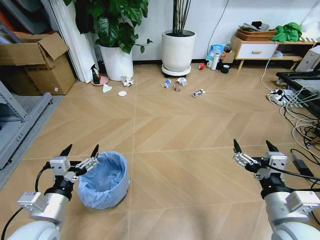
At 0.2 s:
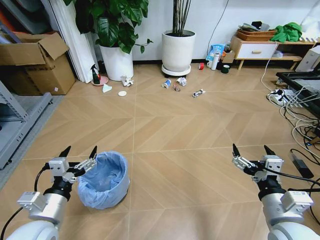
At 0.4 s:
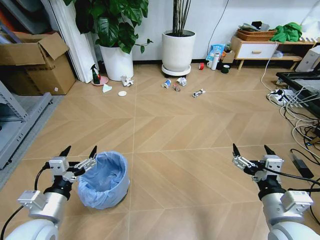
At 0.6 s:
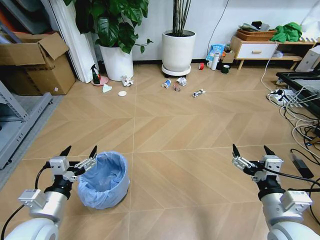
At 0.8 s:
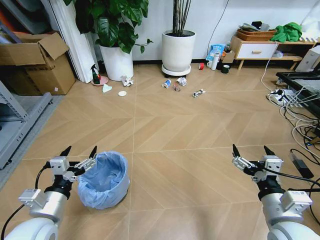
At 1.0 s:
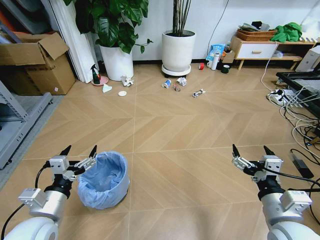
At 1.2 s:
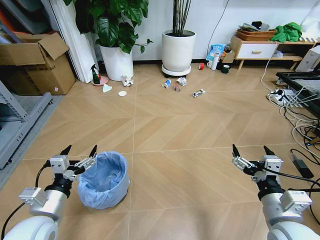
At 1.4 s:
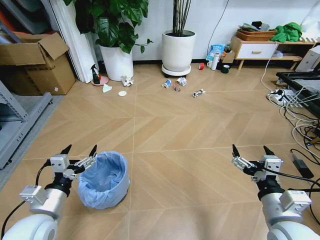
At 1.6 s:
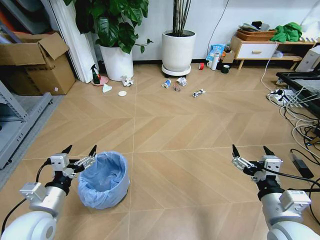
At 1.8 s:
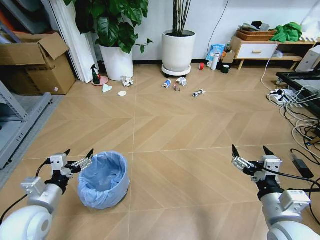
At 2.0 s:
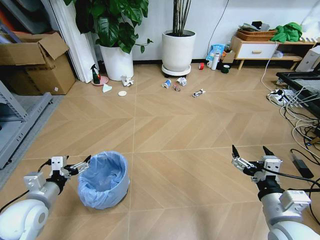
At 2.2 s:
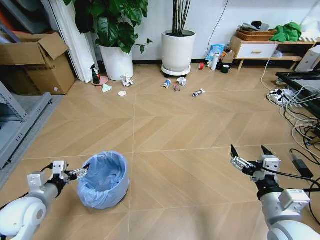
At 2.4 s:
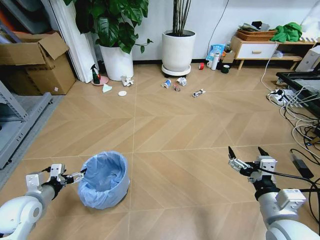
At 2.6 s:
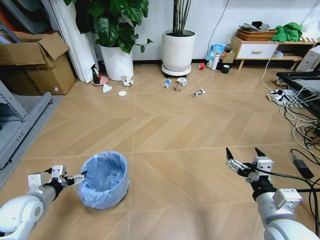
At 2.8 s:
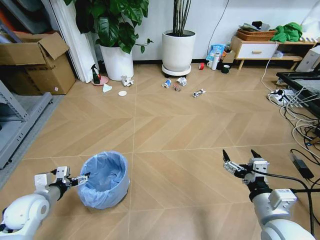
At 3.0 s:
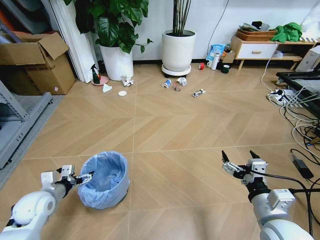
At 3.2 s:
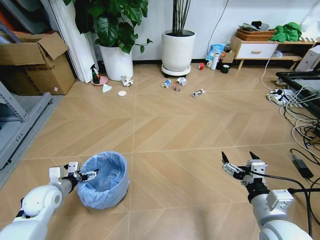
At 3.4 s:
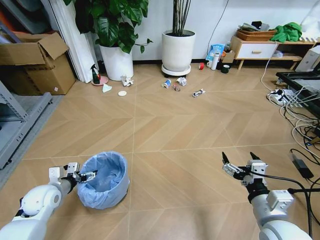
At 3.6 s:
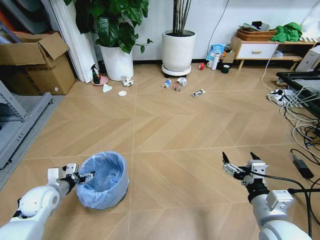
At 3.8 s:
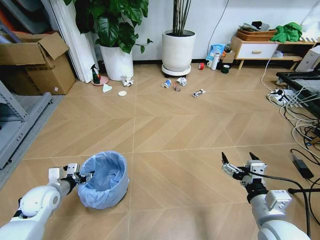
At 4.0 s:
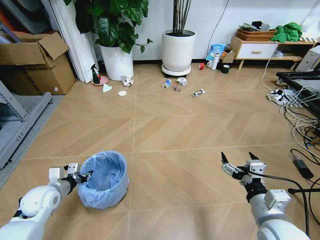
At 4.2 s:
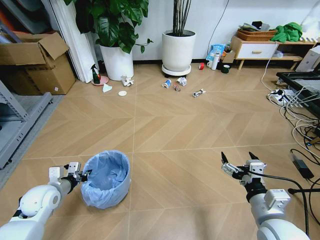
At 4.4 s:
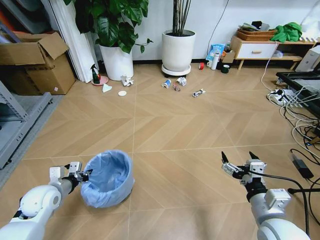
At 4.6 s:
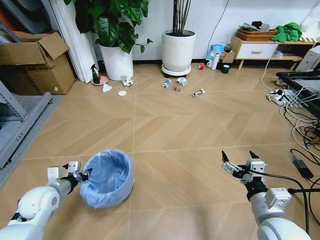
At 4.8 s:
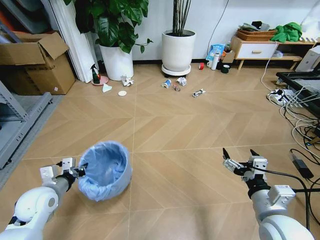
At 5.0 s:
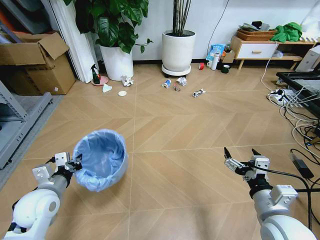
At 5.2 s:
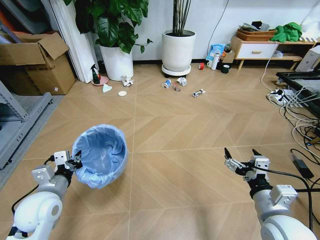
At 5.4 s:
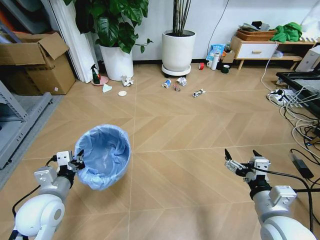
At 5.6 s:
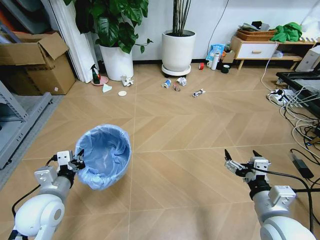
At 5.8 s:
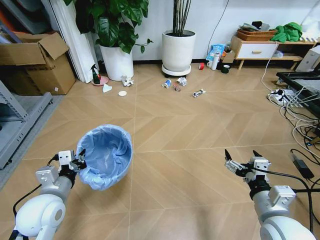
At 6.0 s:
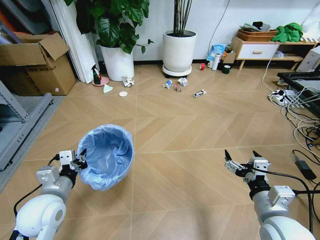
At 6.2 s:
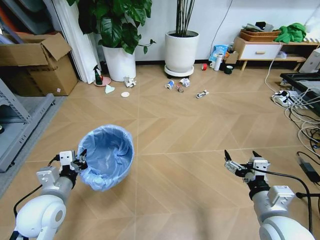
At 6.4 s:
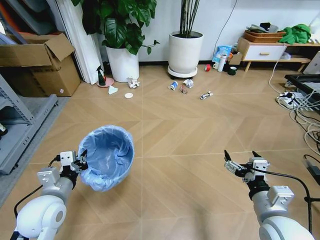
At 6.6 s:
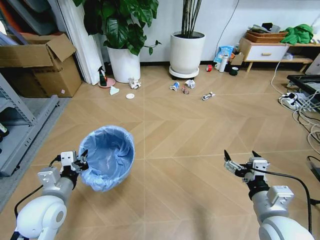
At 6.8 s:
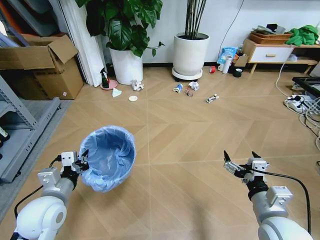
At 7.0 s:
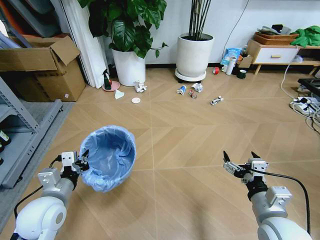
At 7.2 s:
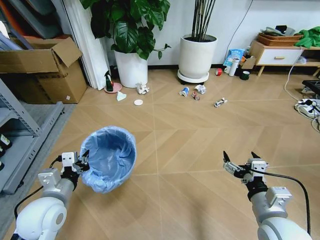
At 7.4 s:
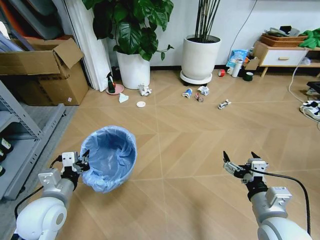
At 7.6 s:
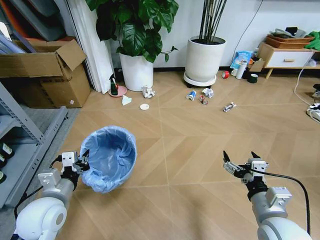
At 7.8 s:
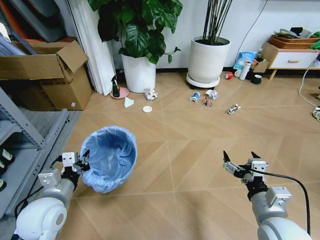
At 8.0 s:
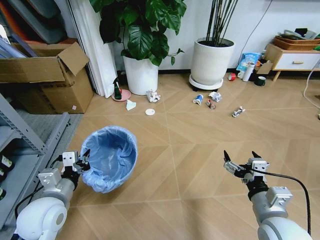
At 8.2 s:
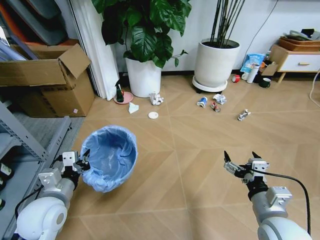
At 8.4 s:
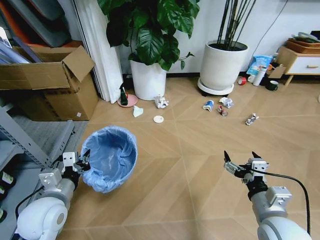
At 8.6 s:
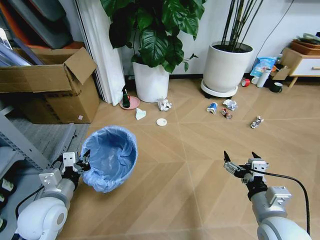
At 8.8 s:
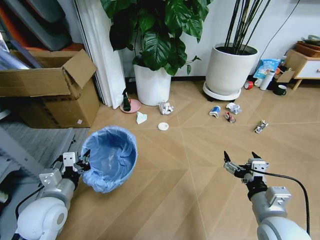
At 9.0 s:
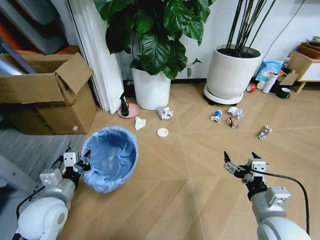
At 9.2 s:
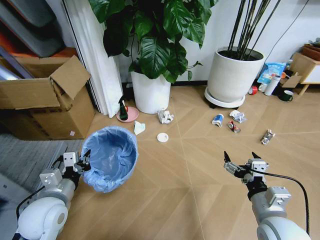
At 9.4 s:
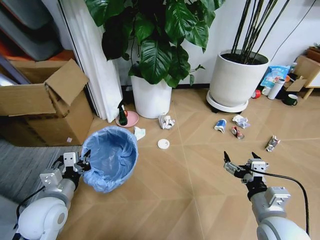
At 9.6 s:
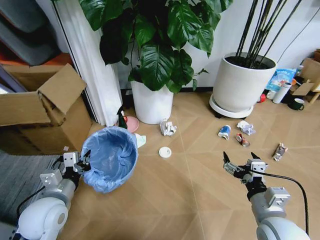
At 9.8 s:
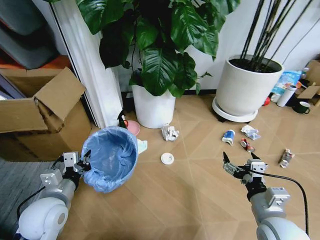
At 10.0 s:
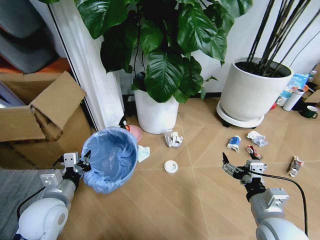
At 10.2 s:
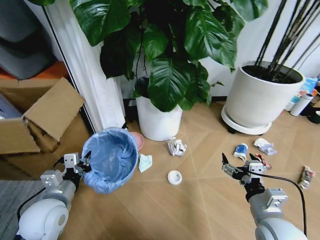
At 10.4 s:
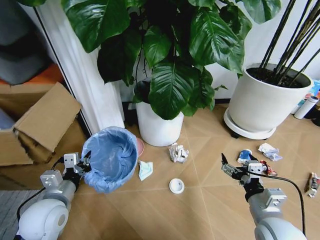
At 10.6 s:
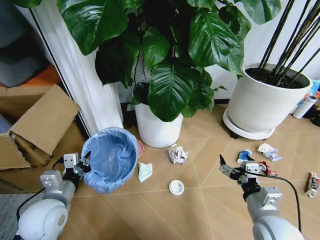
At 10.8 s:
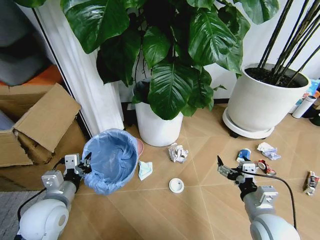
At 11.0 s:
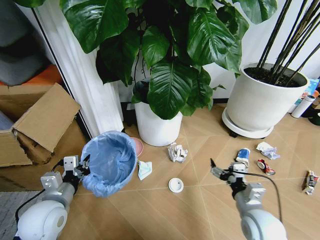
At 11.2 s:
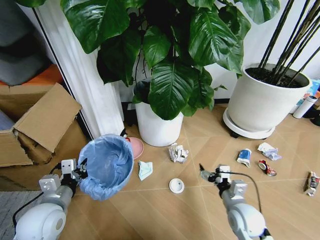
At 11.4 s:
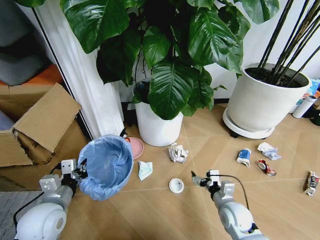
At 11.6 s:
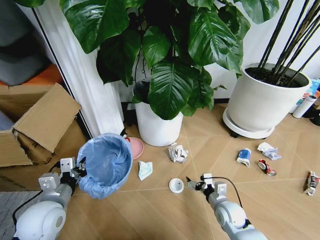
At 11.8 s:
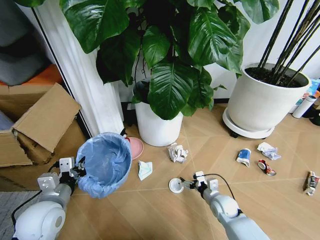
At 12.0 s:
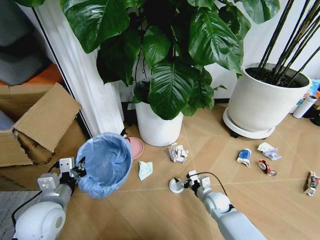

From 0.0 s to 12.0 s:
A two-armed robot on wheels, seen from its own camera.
Task of the whole recording: Pick up the trash bin and place the garbage on the floor into it.
From 1.6 s to 3.0 s: The left gripper heads forward, to the left and downward, covering about 15 cm.
From 3.0 s to 4.4 s: The left gripper closes its fingers.
From 4.4 s to 6.0 s: The left gripper is displaced to the right, upward and backward by approximately 10 cm.
From 10.4 s to 12.0 s: The right gripper heads downward and forward, covering roughly 30 cm.

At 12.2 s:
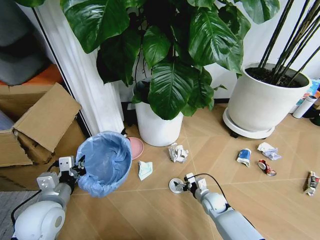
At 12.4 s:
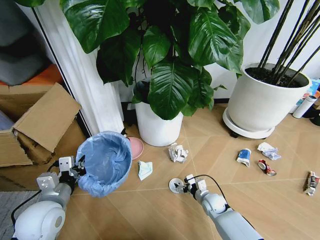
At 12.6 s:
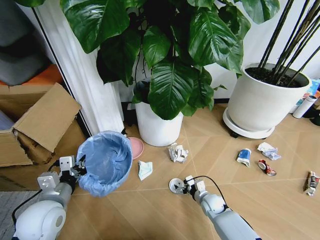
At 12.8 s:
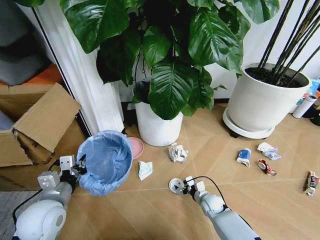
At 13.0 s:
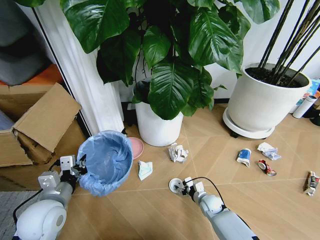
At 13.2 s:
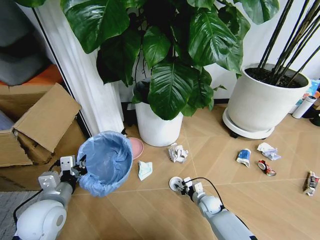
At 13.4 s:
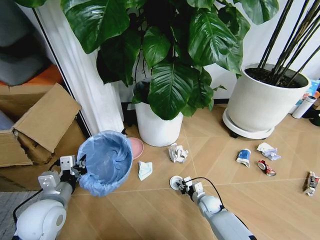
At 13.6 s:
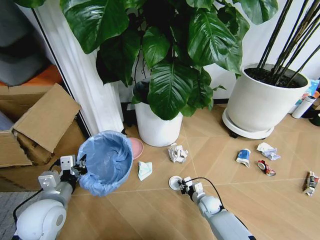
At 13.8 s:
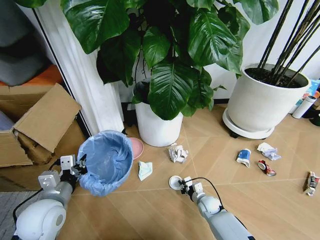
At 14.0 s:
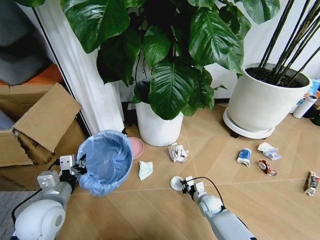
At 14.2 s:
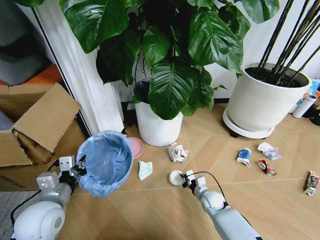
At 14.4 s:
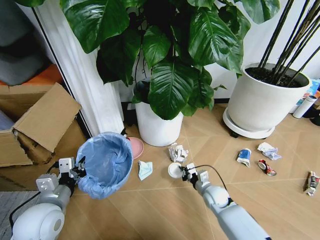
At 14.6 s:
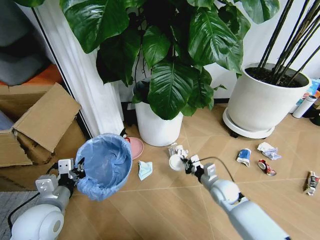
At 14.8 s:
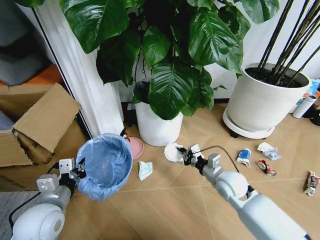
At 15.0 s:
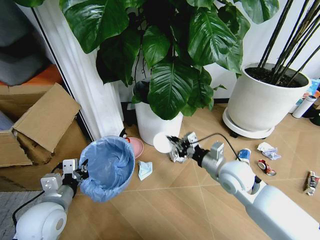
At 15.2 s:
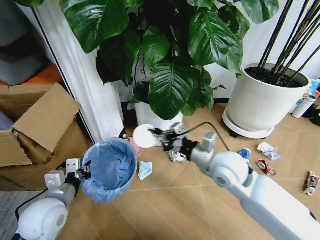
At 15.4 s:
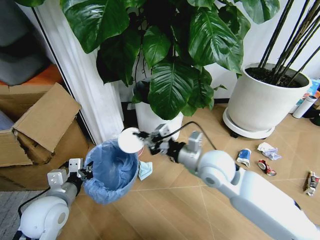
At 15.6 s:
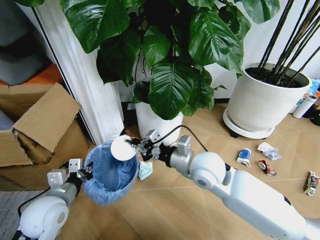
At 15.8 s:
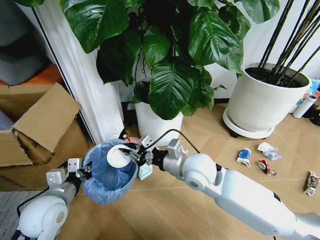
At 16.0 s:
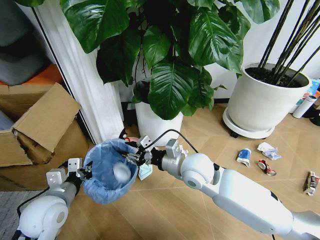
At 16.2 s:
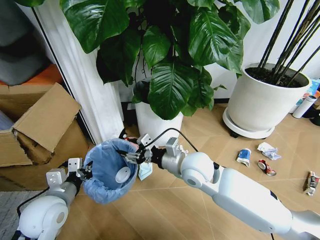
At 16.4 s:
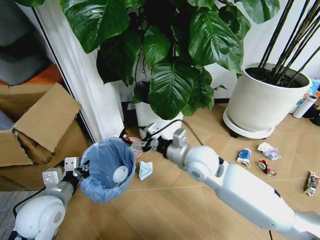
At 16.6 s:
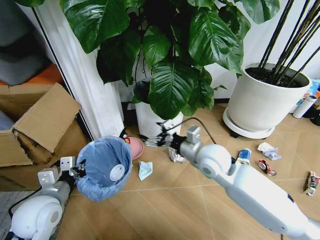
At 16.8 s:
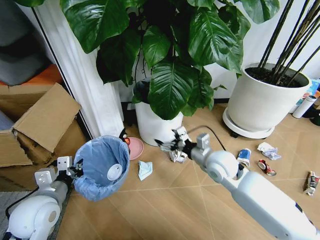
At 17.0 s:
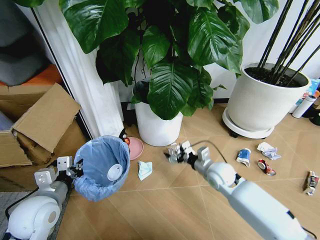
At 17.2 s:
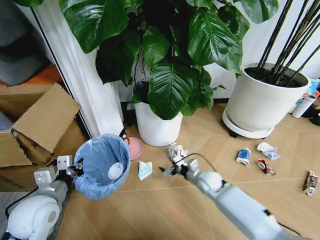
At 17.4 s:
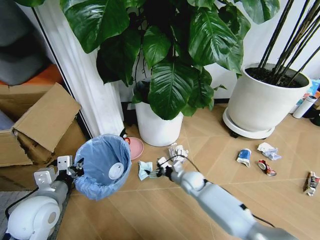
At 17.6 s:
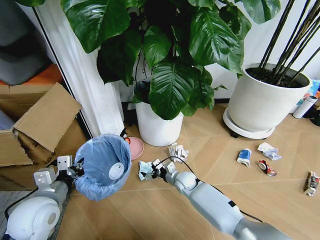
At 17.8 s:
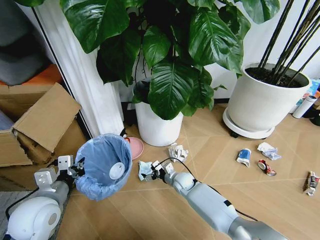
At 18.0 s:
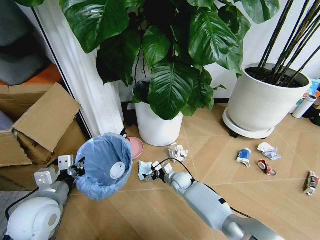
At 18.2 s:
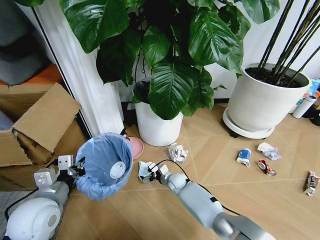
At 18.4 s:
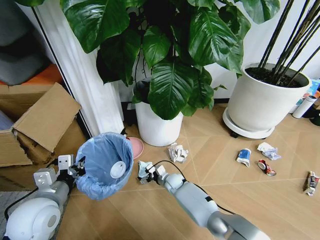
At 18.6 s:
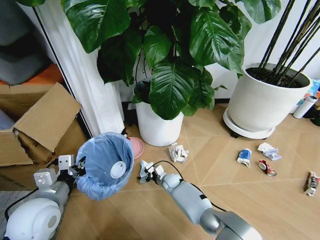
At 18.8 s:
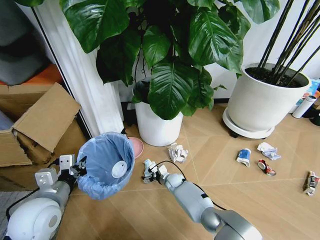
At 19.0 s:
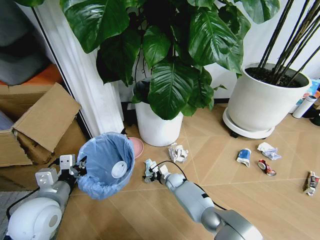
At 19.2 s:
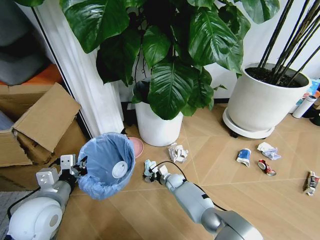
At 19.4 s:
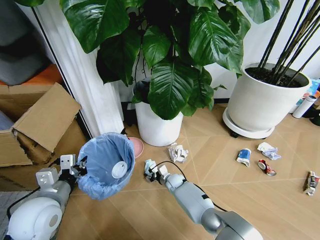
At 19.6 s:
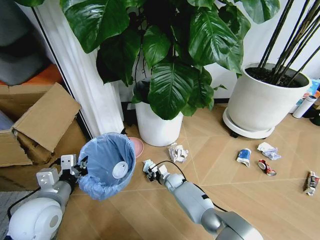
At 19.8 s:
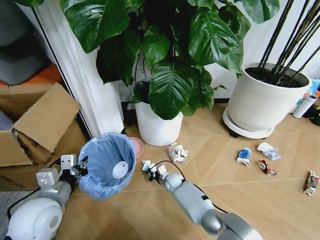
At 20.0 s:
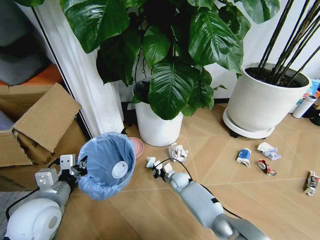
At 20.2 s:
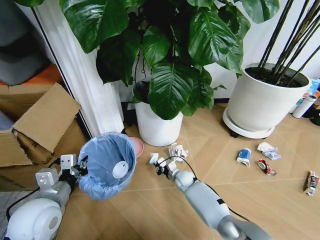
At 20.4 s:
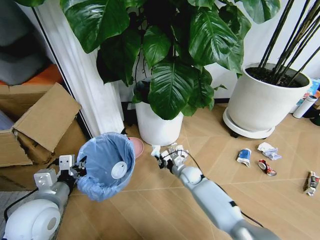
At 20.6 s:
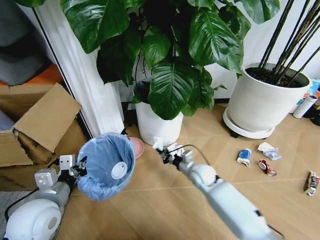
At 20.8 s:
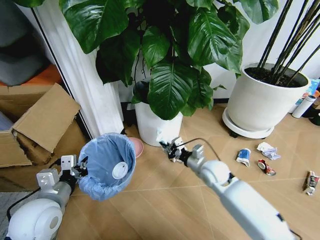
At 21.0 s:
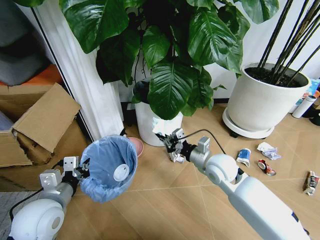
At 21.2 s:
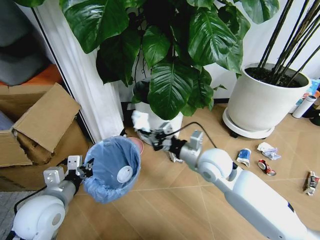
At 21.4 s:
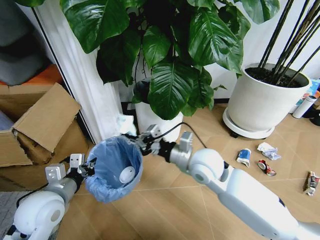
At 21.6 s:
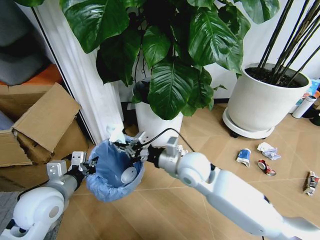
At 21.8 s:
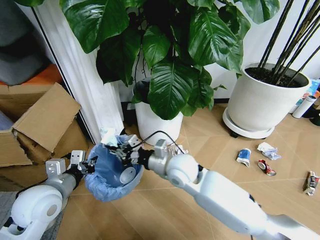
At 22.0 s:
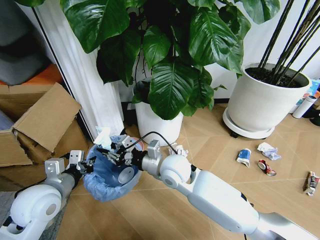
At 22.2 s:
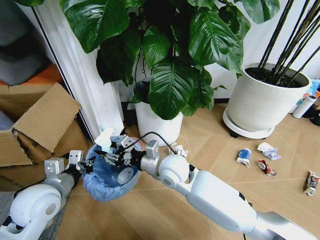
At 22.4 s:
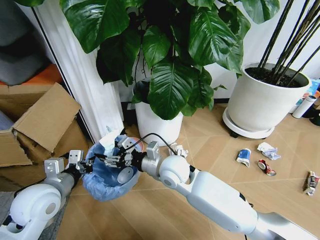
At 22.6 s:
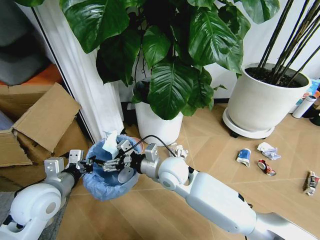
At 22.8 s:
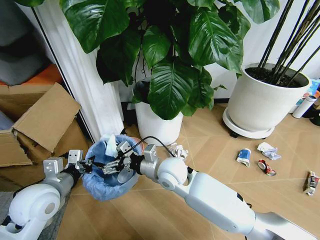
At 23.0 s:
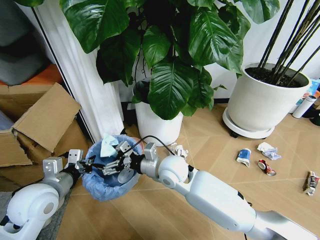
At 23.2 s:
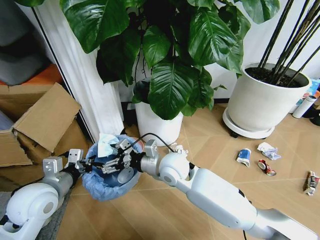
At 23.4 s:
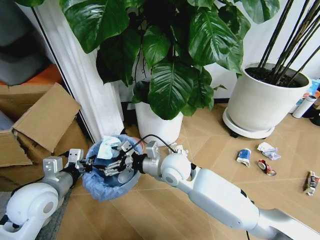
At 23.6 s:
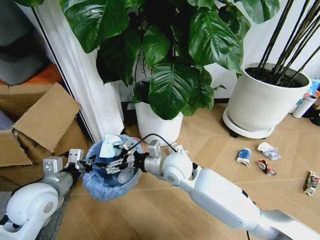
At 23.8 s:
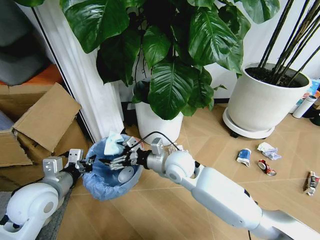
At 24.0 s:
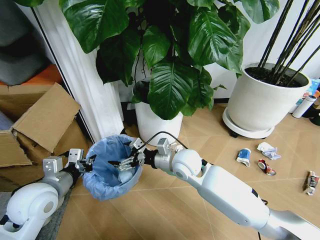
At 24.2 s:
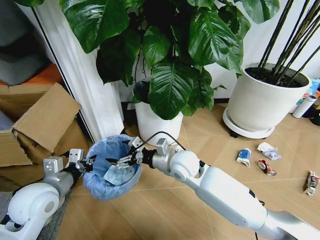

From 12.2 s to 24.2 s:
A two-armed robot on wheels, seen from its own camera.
Task of the whole recording: Pick up the trash bin and place the garbage on the floor into it.
From 12.2 s to 13.8 s: The right gripper closes its fingers.
From 13.8 s to 15.2 s: The right gripper is displaced upward by approximately 35 cm.
From 15.2 s to 16.6 s: The right gripper travels to the left and back again, roughly 10 cm each way, and opens up.
From 16.6 s to 18.2 s: The right gripper is displaced downward by approximately 30 cm.
From 18.2 s to 19.8 s: The right gripper closes up.
From 19.8 s to 21.2 s: The right gripper heads upward, covering about 30 cm.
From 21.2 s to 22.6 s: The right gripper goes approximately 10 cm to the left, and opens.
From 22.6 s to 24.2 s: The grippers stay close to where they were, moving slightly.
